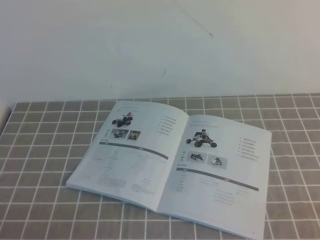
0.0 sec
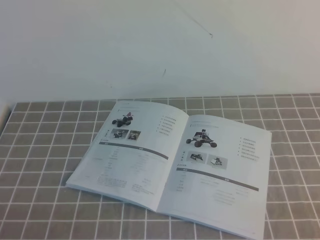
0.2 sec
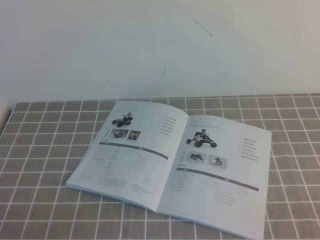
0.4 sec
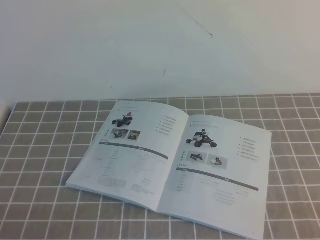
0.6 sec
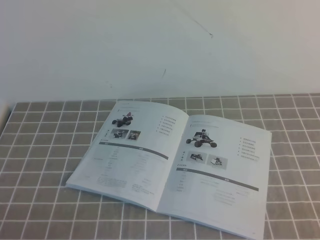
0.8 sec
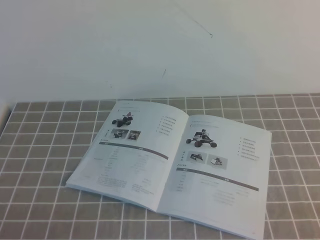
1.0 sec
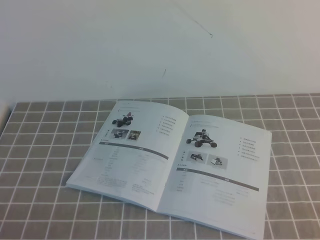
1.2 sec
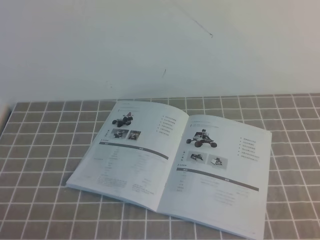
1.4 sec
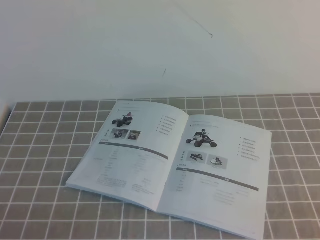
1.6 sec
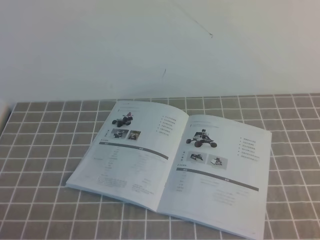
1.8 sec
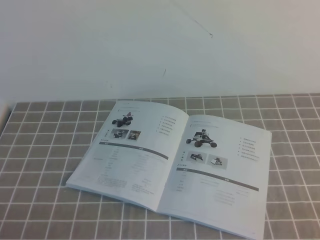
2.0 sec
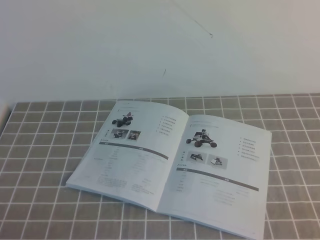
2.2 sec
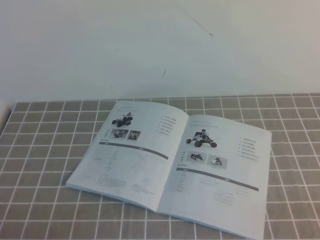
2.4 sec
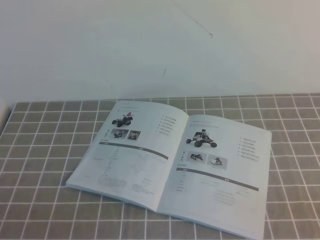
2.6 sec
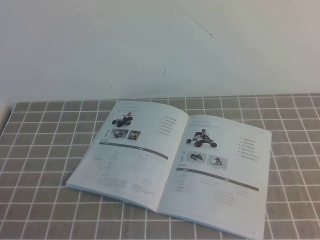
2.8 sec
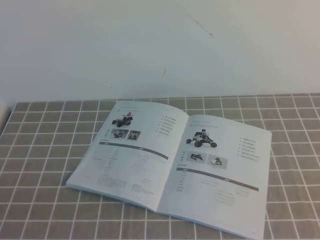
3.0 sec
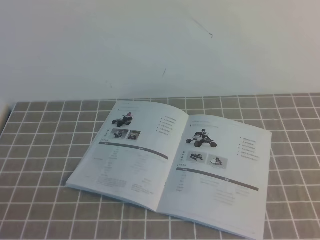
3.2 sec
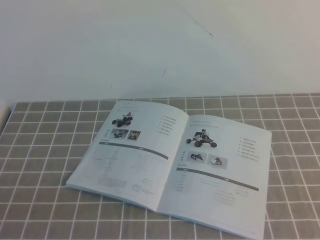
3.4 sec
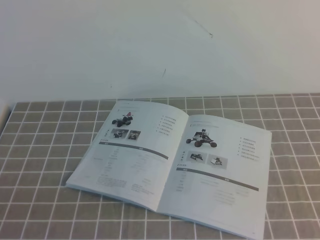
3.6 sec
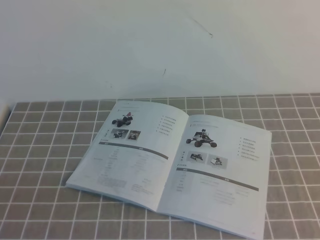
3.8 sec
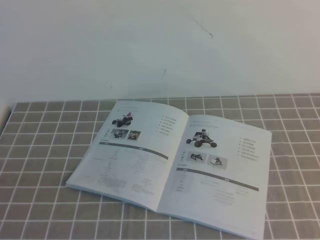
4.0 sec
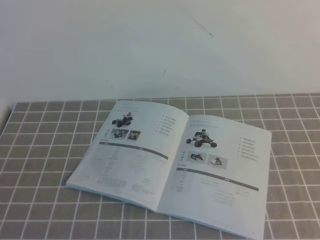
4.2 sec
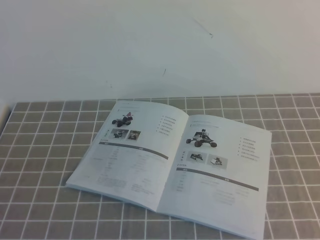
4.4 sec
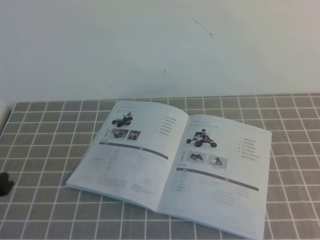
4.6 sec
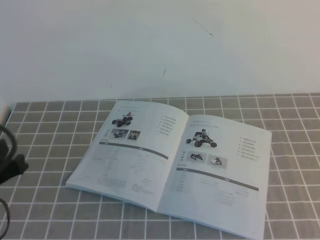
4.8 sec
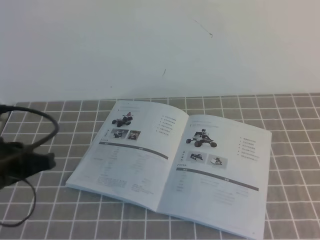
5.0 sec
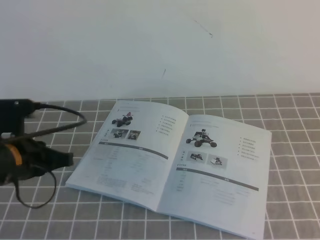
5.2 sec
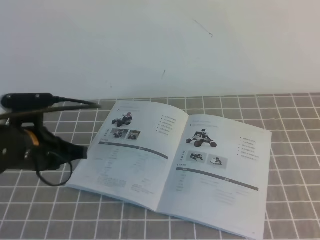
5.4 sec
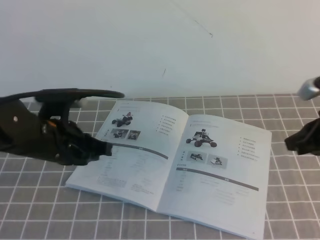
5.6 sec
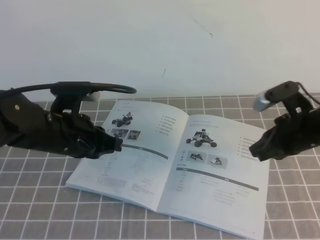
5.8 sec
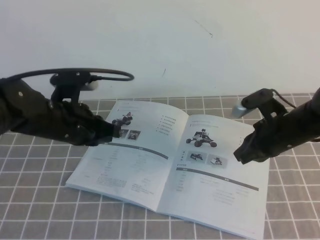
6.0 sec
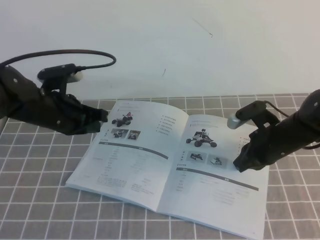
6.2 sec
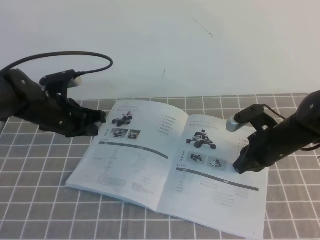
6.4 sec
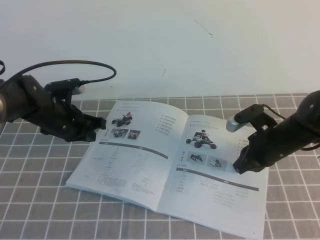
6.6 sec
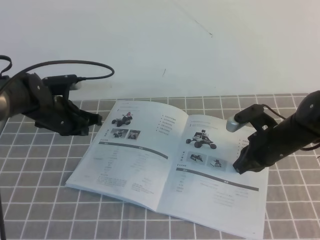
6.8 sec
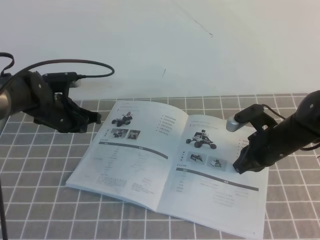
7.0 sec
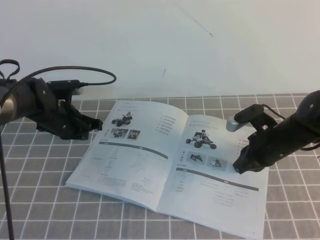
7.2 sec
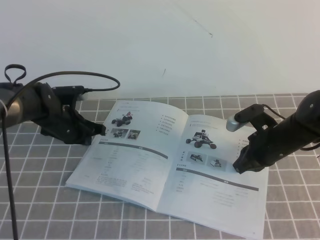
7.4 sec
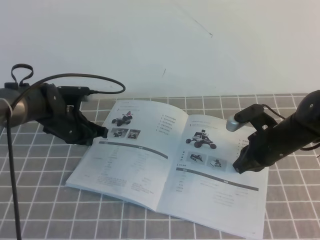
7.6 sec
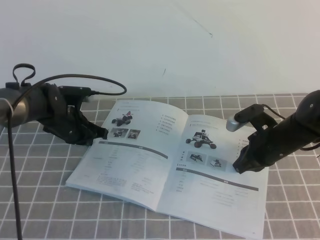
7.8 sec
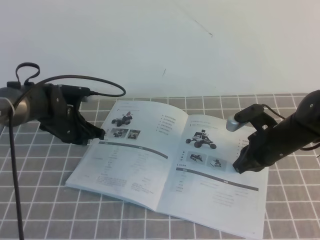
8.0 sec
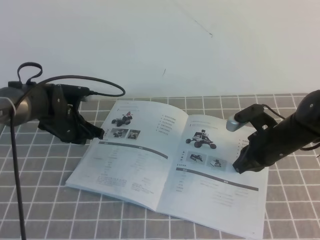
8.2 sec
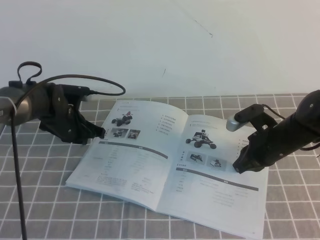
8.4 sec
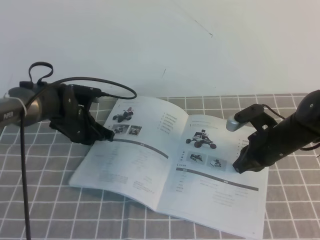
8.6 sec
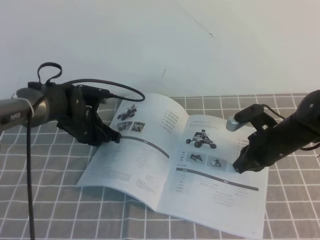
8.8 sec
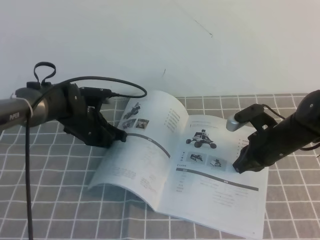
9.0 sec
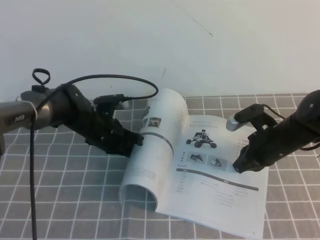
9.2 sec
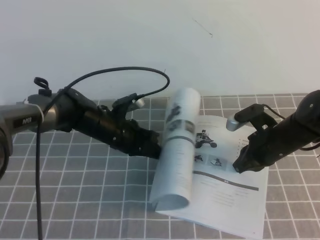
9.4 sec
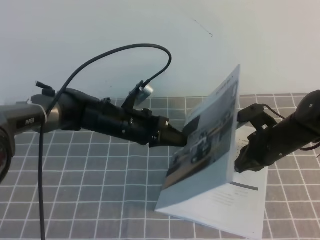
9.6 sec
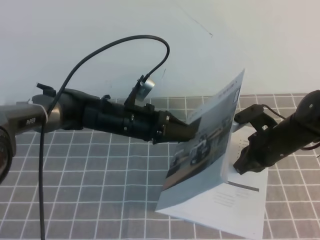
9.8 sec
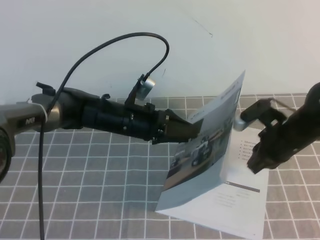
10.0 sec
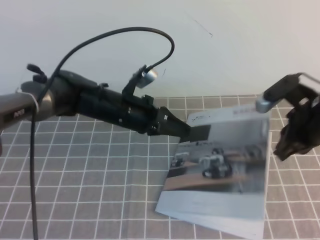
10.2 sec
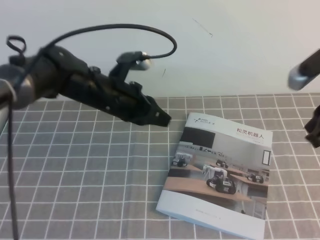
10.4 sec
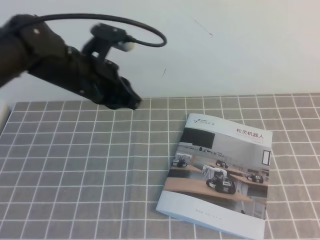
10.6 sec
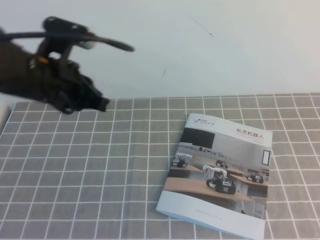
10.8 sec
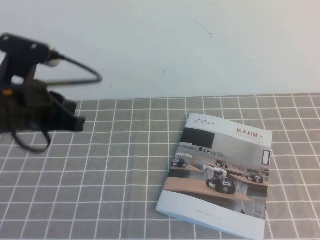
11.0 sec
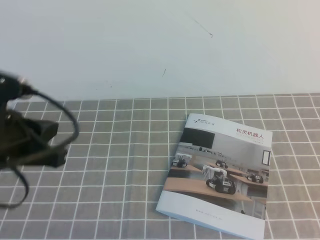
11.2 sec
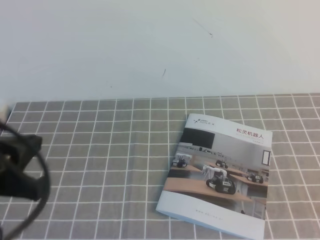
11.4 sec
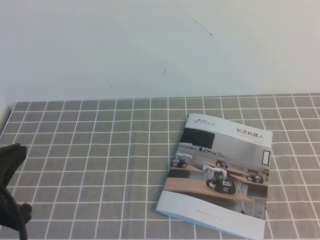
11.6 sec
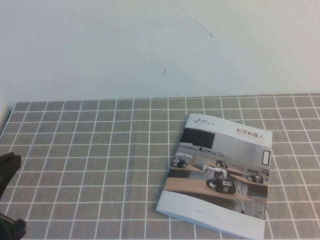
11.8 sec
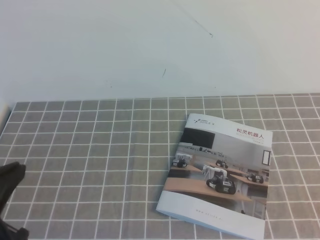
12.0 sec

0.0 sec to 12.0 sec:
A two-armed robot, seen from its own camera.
Task of the whole recording: on the grey tablecloth, hold the book with one hand and close it with the other.
0.0 sec to 1.6 sec: The two grippers keep their place.
4.4 sec to 6.0 sec: The right gripper heads forward, to the left and downward, covering about 30 cm. The left gripper heads forward, covering some 20 cm.
6.0 sec to 7.6 sec: The right gripper moves downward, roughly 5 cm. Meanwhile the left gripper heads forward and downward, covering approximately 15 cm.
7.6 sec to 9.0 sec: The left gripper moves to the right, approximately 5 cm.
9.0 sec to 10.4 sec: The right gripper is displaced upward and backward by some 20 cm. Meanwhile the left gripper is displaced upward and to the right by roughly 10 cm, and opens and closes again.
10.4 sec to 12.0 sec: The left gripper is displaced backward and to the left by about 30 cm. Meanwhile the right gripper heads backward, covering some 20 cm.

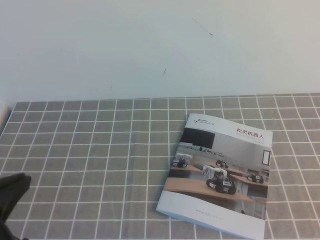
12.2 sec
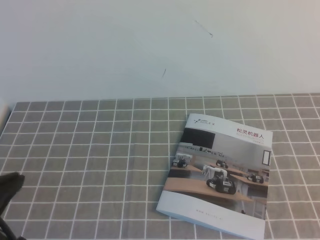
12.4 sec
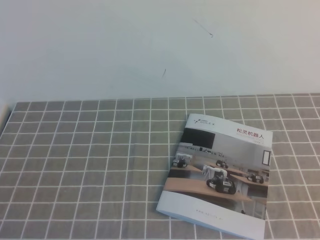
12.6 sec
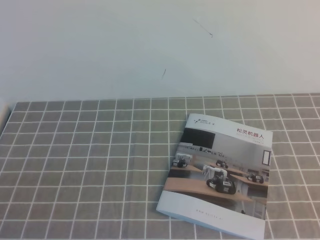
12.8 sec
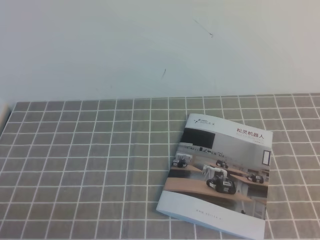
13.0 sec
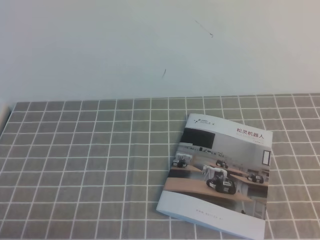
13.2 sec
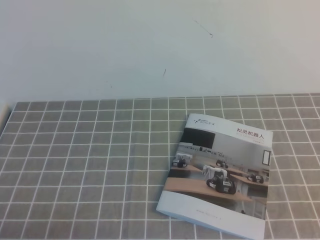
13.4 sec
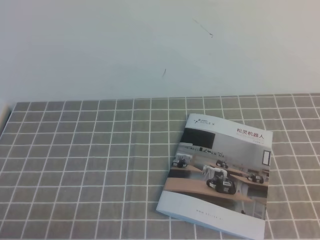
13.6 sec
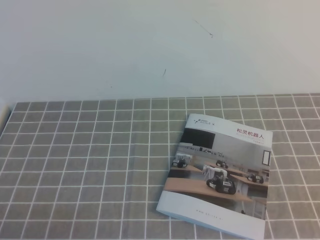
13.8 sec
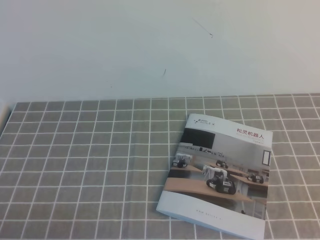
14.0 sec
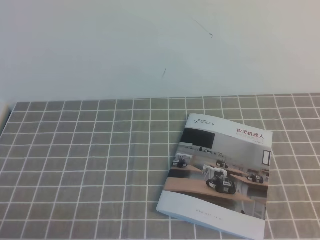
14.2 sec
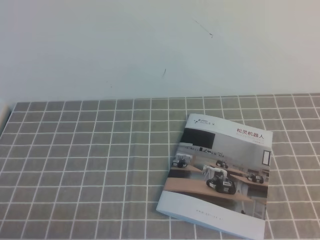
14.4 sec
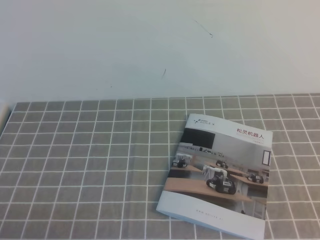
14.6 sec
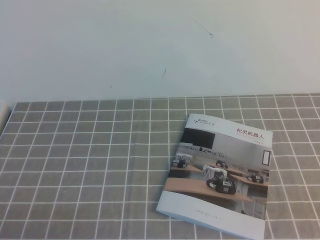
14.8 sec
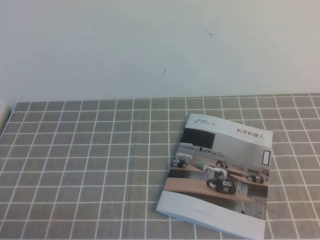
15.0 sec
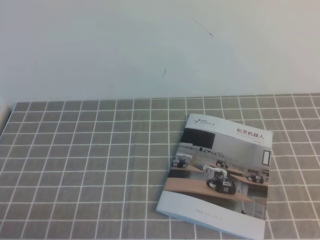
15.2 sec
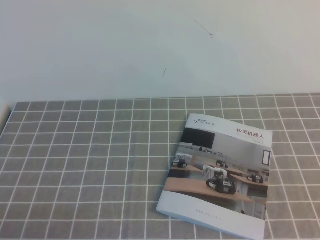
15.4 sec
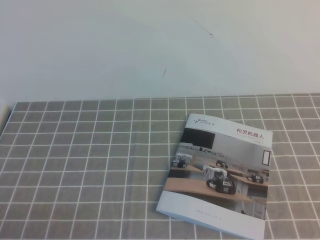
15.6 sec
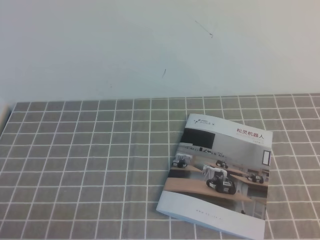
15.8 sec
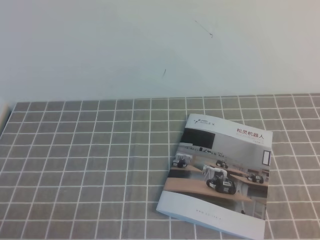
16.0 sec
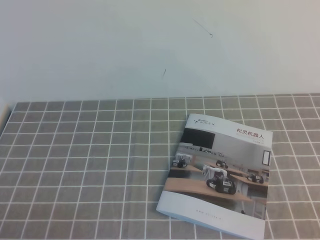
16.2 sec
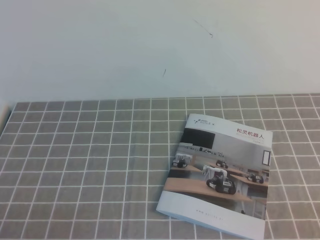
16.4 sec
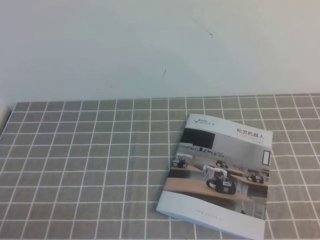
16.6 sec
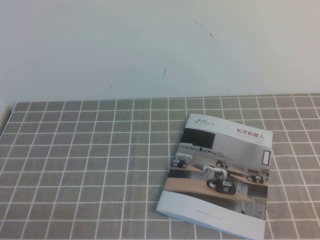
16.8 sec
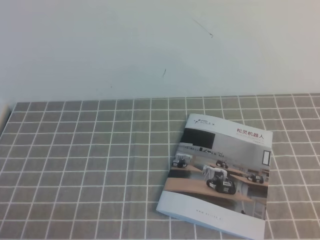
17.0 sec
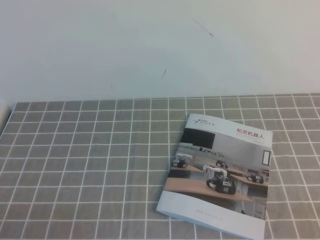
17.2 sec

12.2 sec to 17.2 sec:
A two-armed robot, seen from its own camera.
Task of the whole recording: on the grey tablecloth, hold the book with one hand and close it with the other.
Step, 12.2 sec to 17.2 sec: Close the open book.
12.2 sec to 13.8 sec: The left gripper moves downward, some 15 cm.
